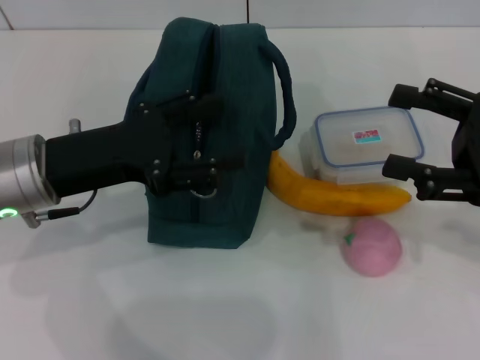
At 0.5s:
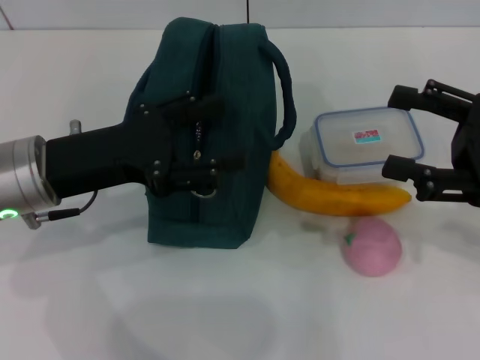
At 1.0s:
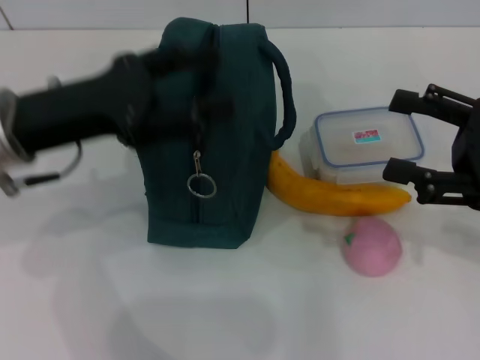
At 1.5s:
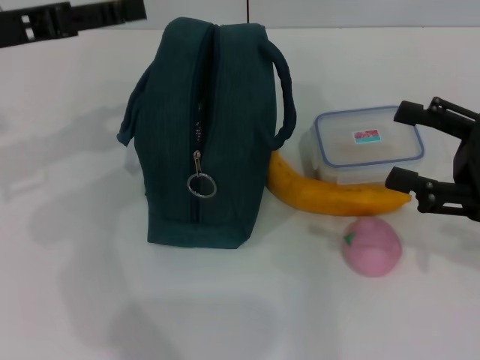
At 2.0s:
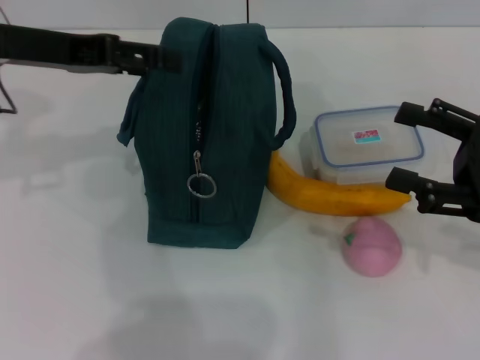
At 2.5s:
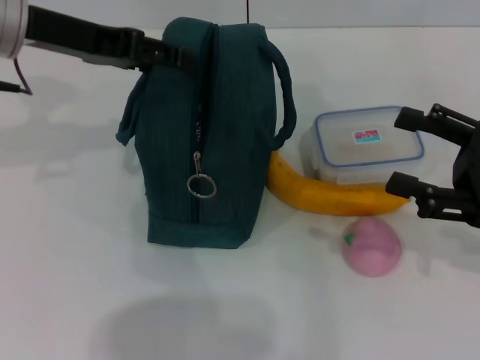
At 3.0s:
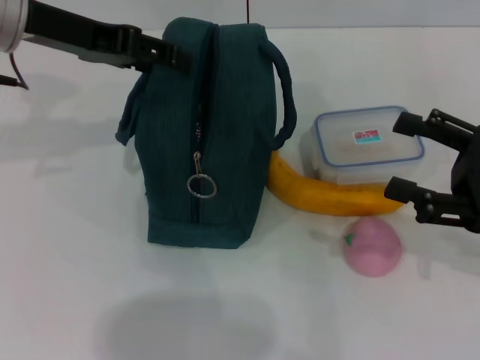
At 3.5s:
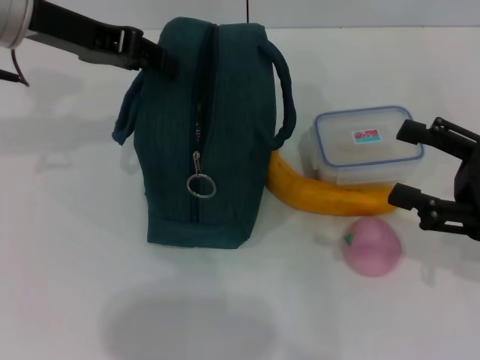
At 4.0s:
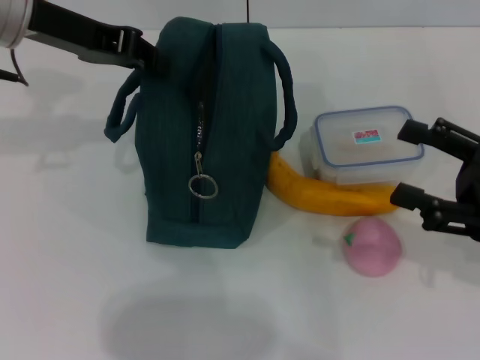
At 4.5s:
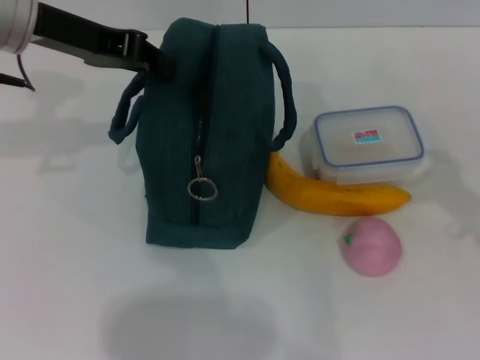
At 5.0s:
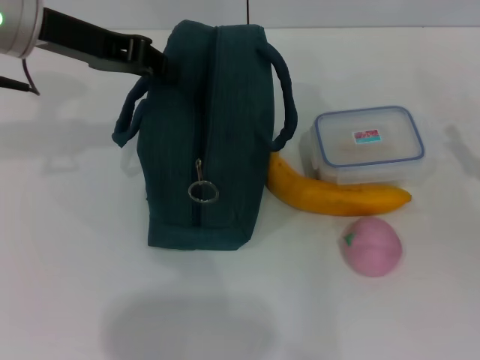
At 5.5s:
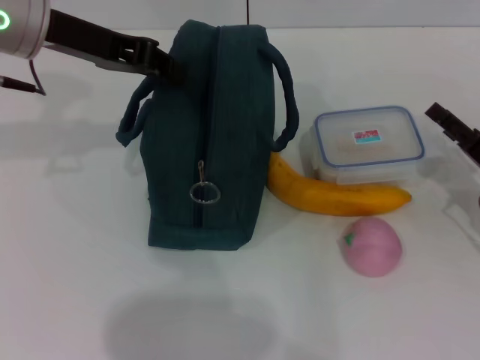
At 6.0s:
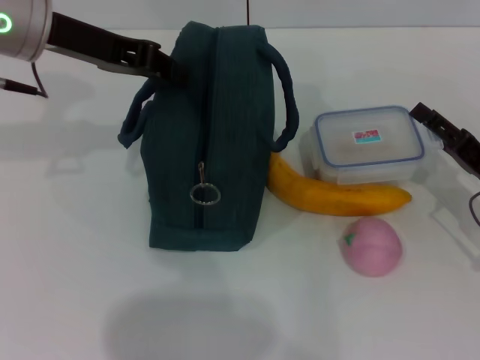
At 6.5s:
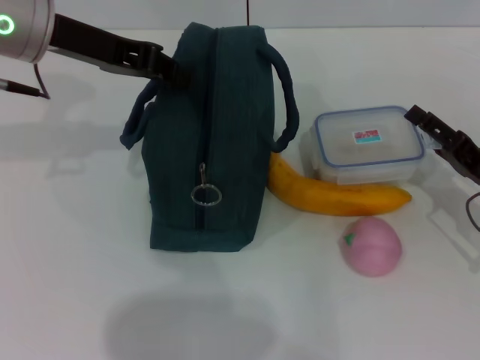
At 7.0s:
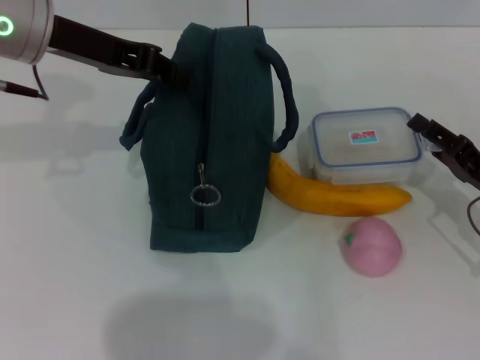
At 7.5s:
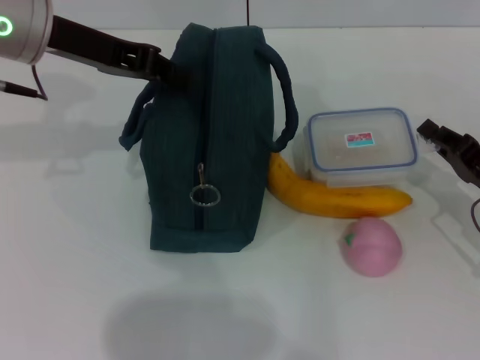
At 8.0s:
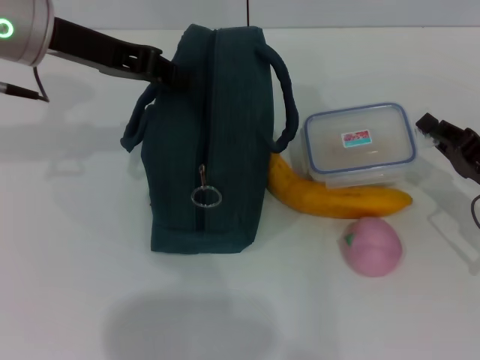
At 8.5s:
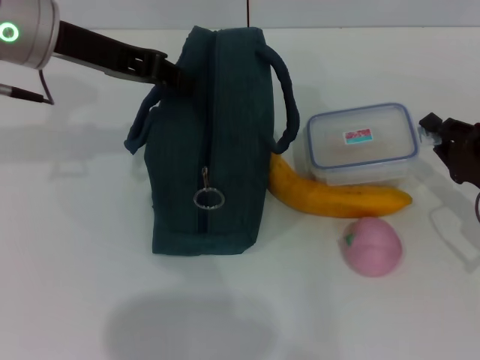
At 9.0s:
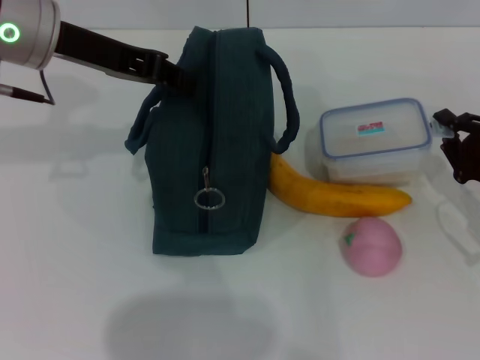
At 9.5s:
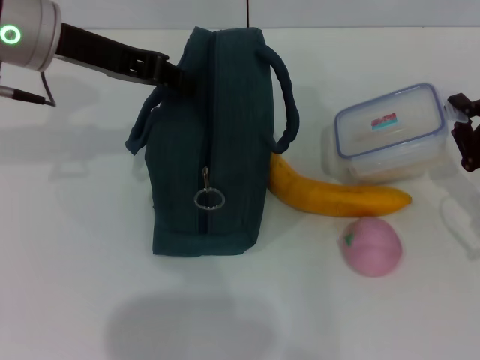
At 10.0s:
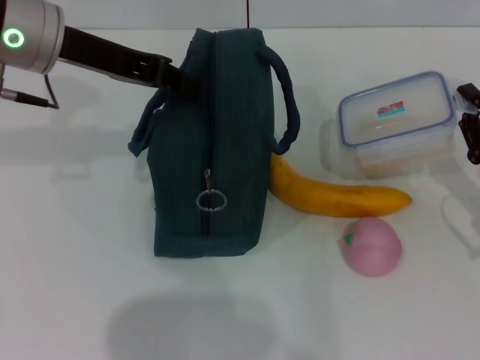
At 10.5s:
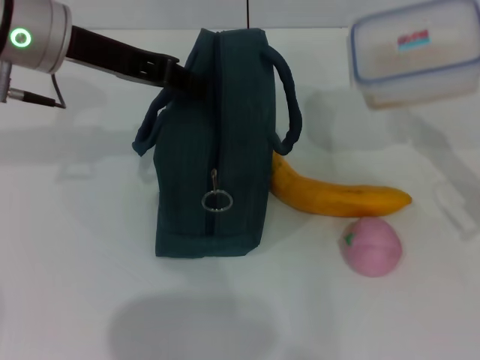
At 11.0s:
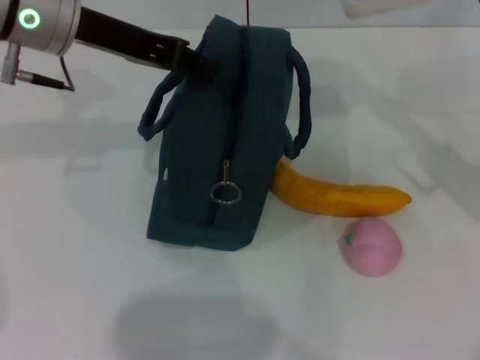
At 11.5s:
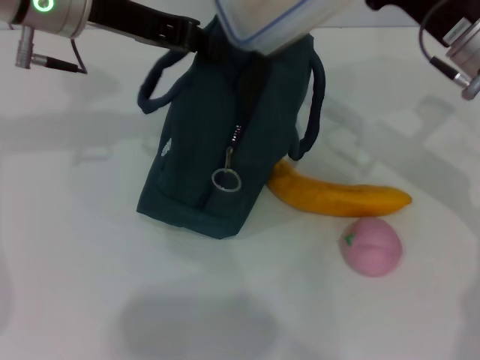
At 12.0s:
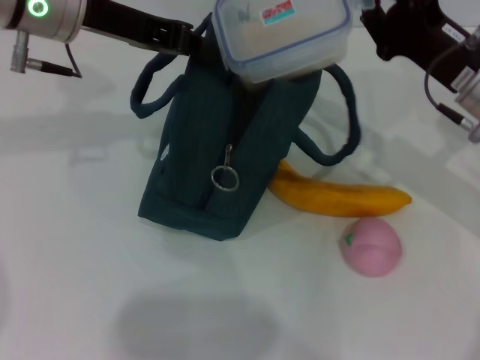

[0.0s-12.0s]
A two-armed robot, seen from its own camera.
Step, 0.0s to 4.0s: Hold the lunch bag with your left hand.
Step, 4.5s to 7.5s: Pick up the lunch box with your right hand.
0.0s to 2.0s: The left gripper moves upward and forward, about 10 cm.
2.0s to 4.0s: The left gripper closes up.
4.0s to 6.0s: The right gripper travels downward by some 10 cm.
6.0s to 8.0s: The right gripper closes up.
10.0s to 12.0s: The right gripper is displaced to the left, forward and upward by some 15 cm.

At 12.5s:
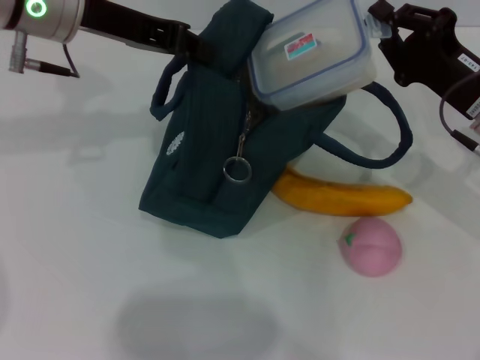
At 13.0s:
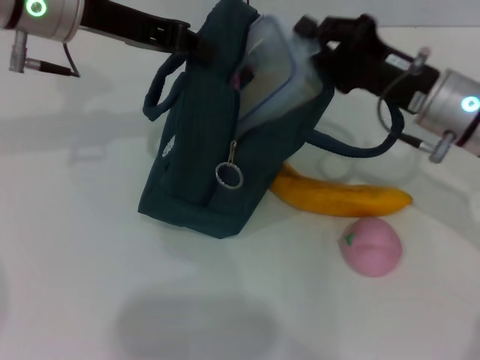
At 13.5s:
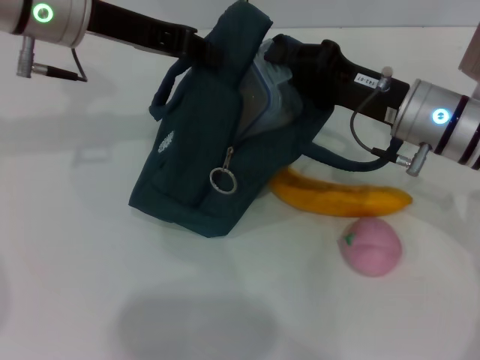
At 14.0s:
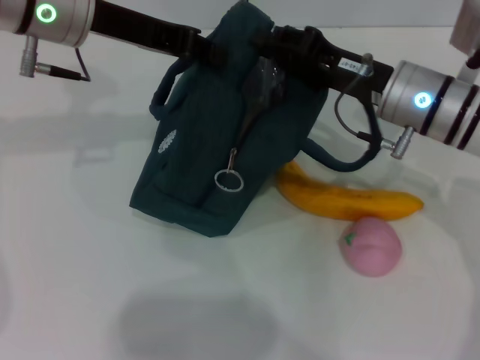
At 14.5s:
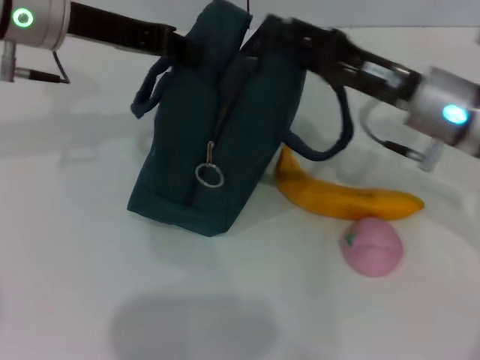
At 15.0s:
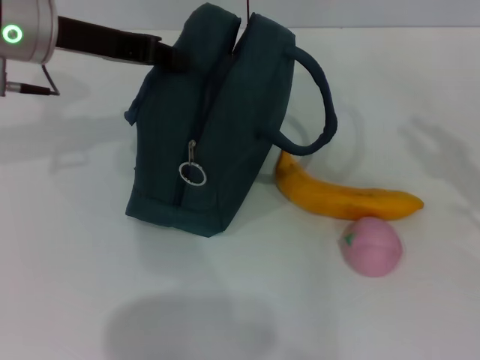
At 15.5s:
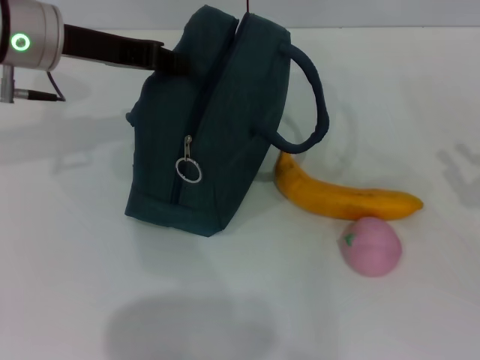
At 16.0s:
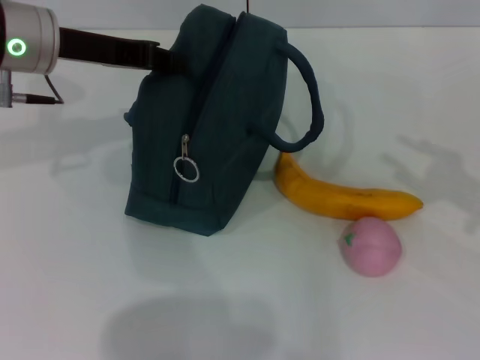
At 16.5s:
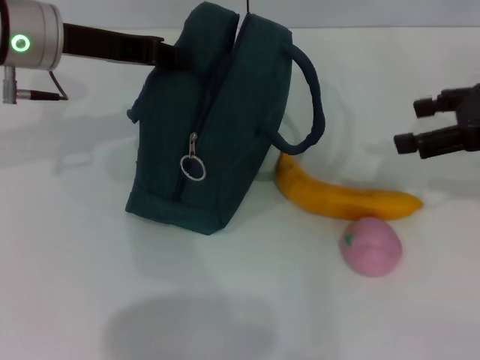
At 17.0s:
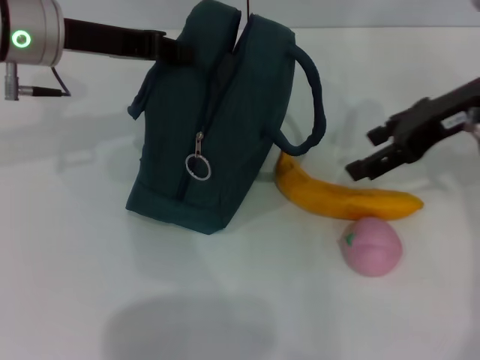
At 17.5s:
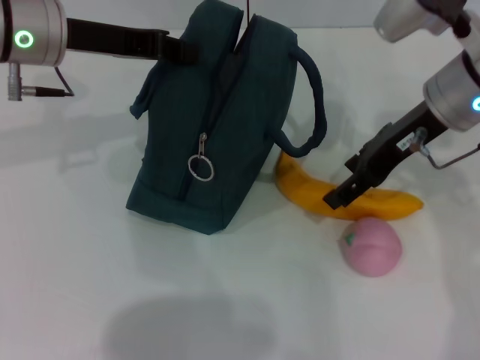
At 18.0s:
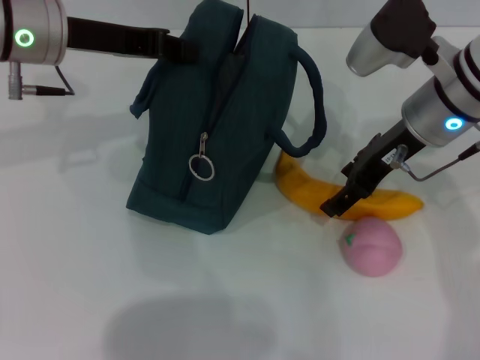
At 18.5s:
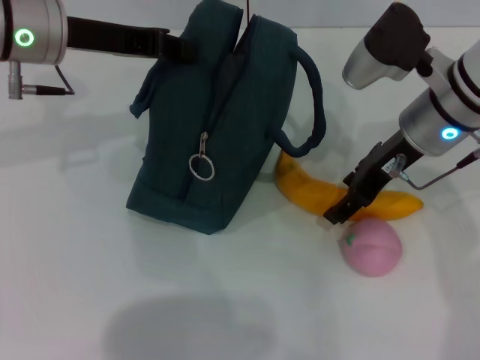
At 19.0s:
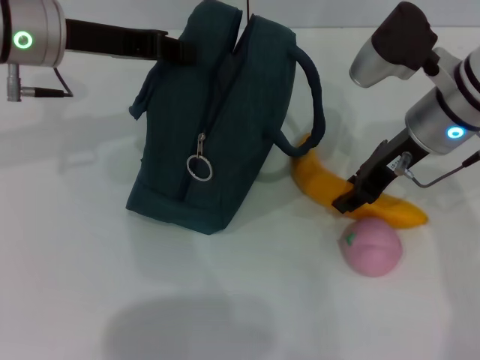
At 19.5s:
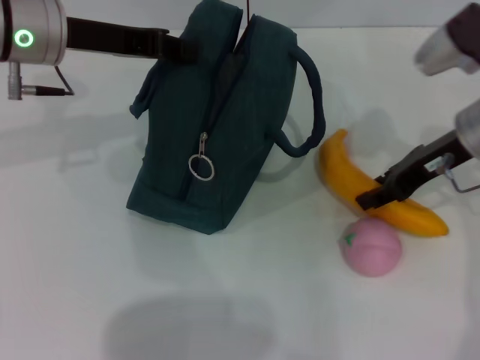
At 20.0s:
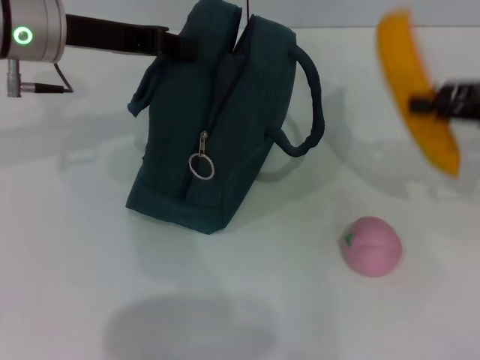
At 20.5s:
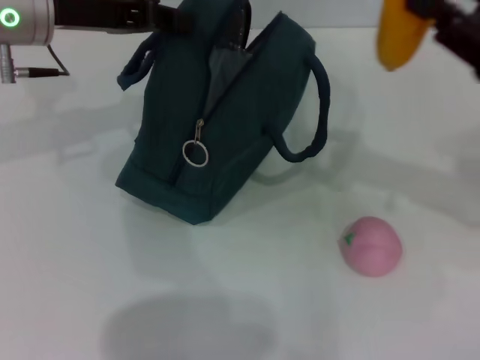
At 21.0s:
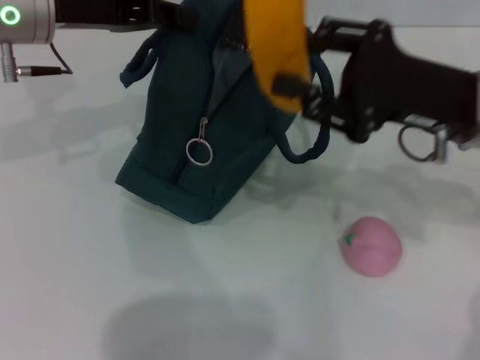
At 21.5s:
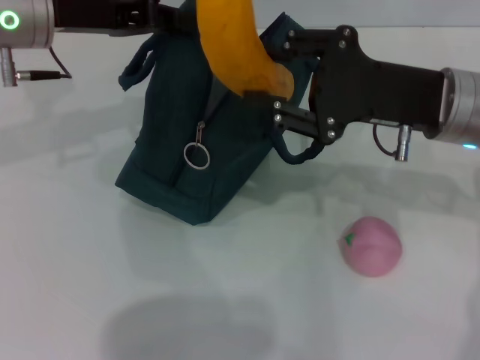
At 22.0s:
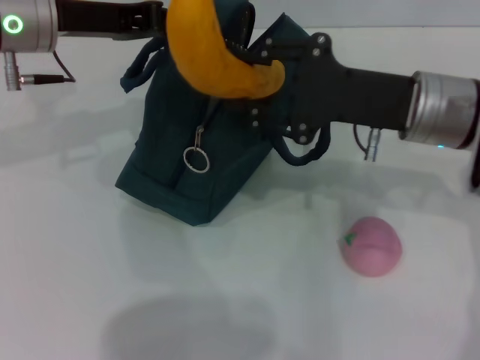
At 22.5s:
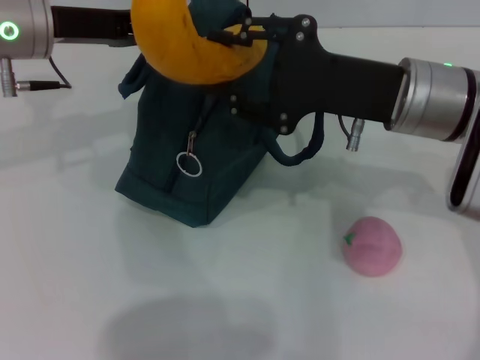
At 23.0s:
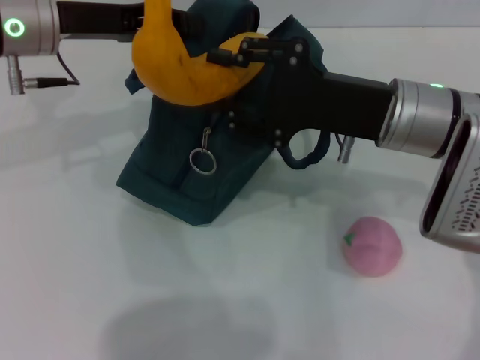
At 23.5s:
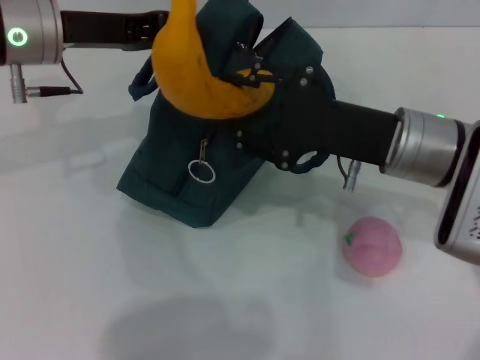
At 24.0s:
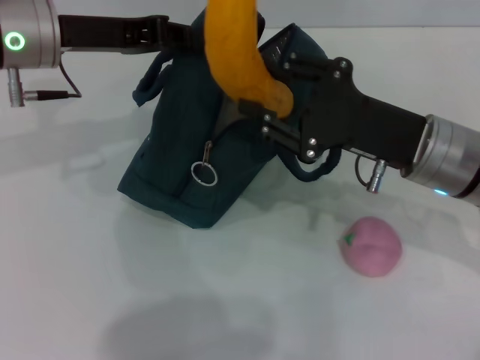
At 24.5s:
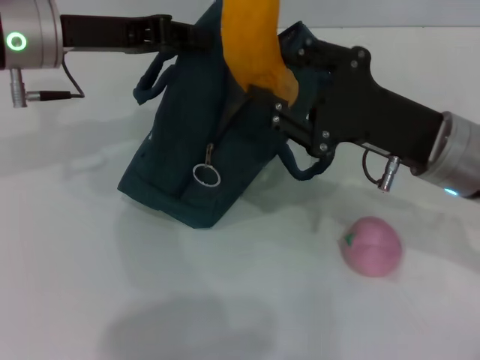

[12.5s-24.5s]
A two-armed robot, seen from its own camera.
Step, 14.5s to 18.5s: Take the banana with your right hand.
12.5s to 14.5s: The right gripper shifts about 5 cm to the left, and opens up.
14.5s to 16.5s: The right gripper shifts roughly 15 cm to the right and upward.
16.5s to 18.5s: The right gripper shifts approximately 15 cm to the left.
18.5s to 20.5s: The right gripper shifts about 15 cm to the right and backward, and closes its fingers.
20.5s to 22.5s: The right gripper travels to the left by approximately 15 cm.
22.5s to 24.5s: The right gripper shifts by approximately 5 cm.

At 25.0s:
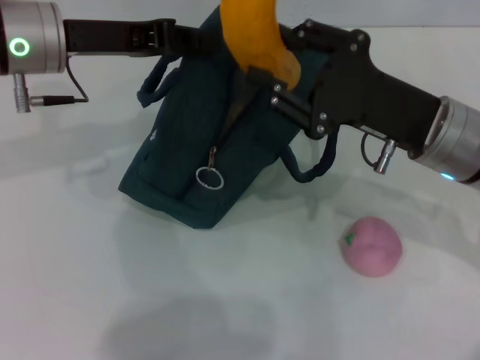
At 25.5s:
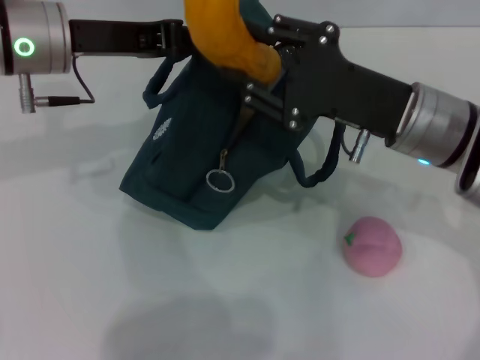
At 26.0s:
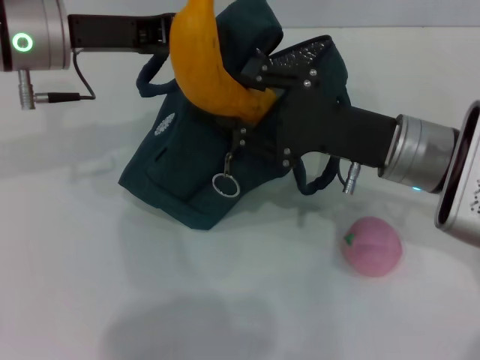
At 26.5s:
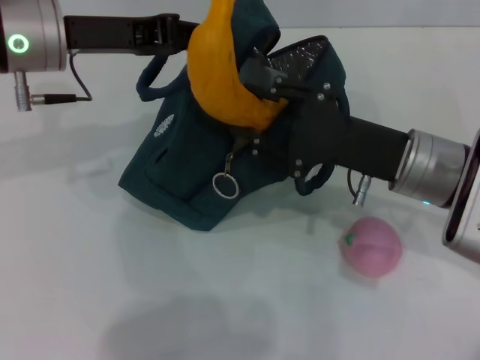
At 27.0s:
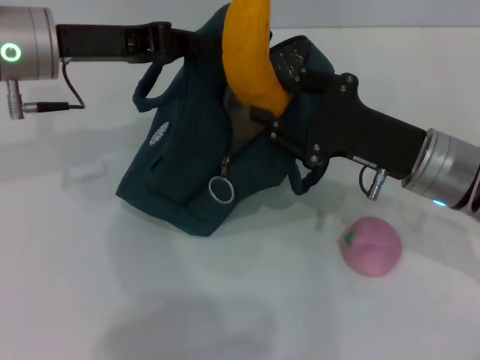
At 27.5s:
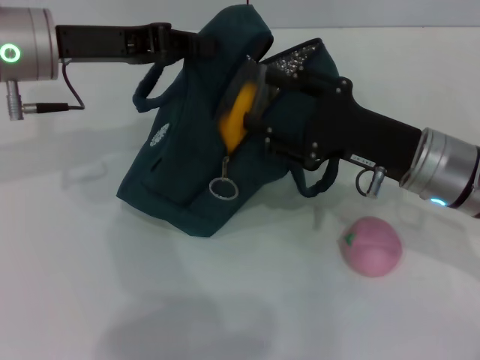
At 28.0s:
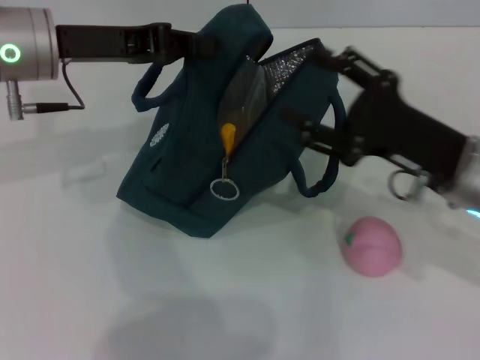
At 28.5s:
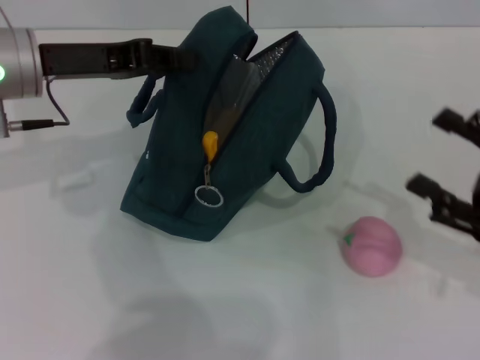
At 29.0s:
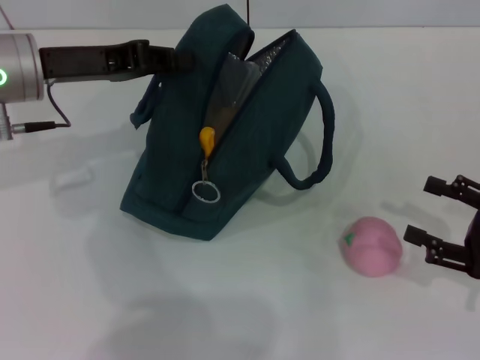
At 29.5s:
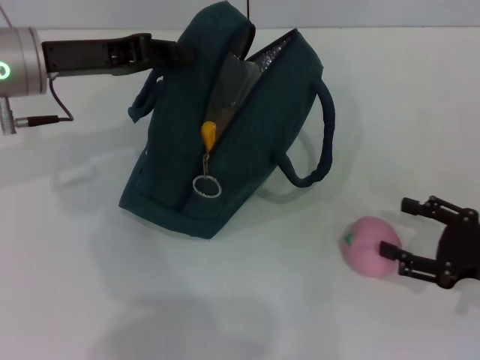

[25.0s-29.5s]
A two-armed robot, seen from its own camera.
Step, 25.0s to 27.5s: Put the banana into the lunch bag with your right hand.
25.0s to 27.0s: The grippers make only small movements.
27.0s to 29.5s: The right gripper is displaced to the right, backward and downward by some 15 cm, and opens.
